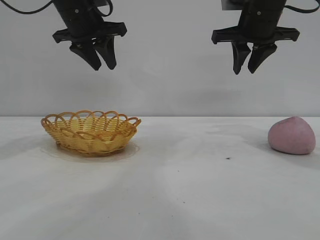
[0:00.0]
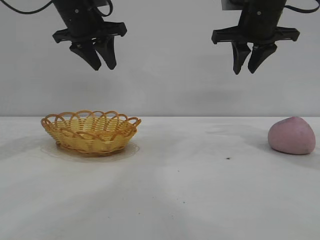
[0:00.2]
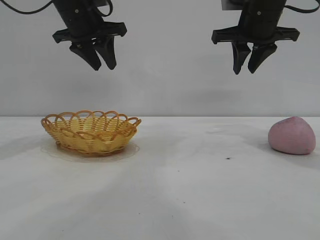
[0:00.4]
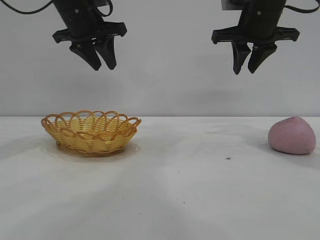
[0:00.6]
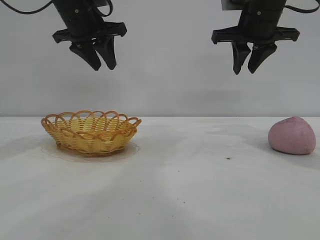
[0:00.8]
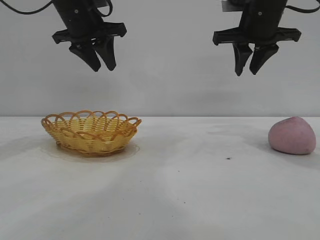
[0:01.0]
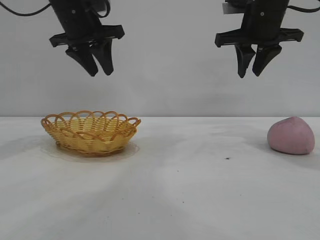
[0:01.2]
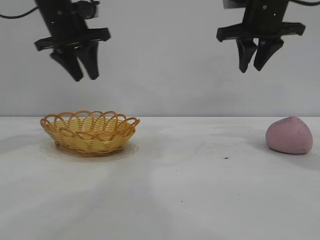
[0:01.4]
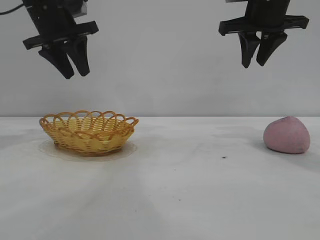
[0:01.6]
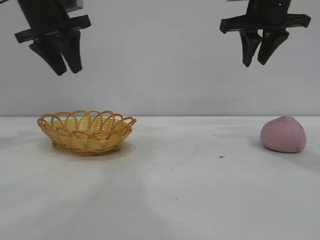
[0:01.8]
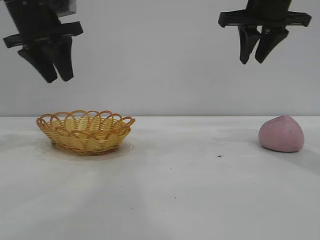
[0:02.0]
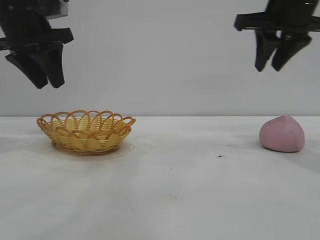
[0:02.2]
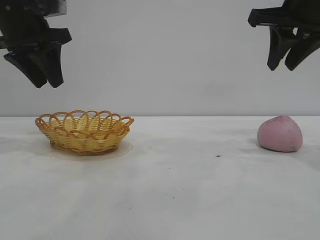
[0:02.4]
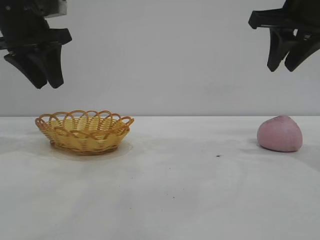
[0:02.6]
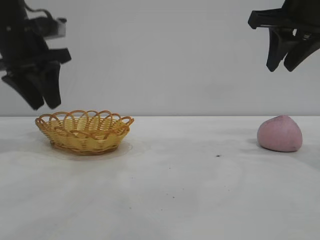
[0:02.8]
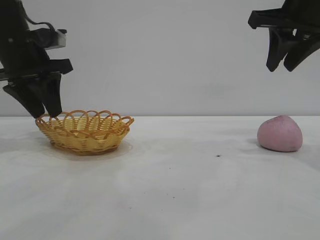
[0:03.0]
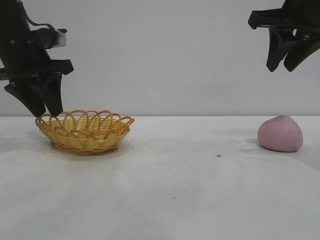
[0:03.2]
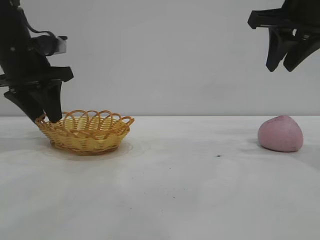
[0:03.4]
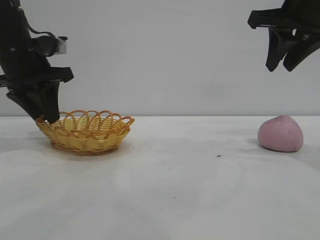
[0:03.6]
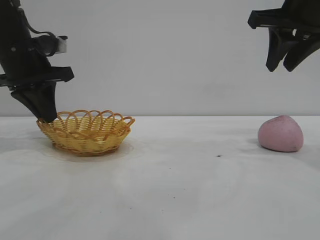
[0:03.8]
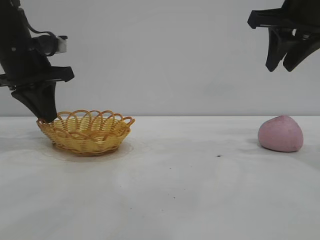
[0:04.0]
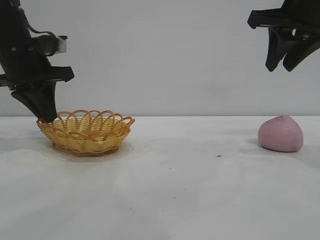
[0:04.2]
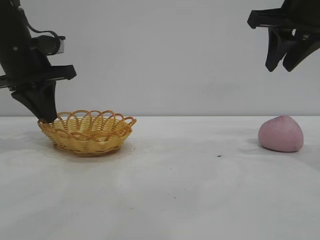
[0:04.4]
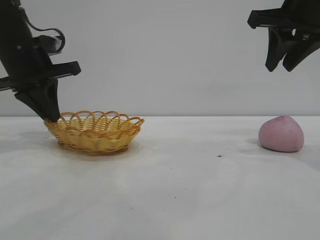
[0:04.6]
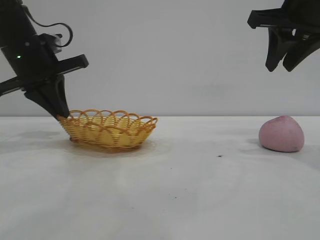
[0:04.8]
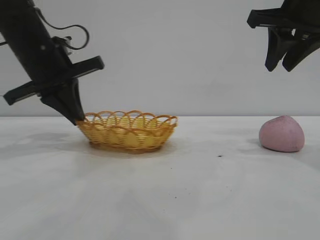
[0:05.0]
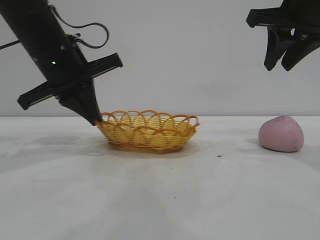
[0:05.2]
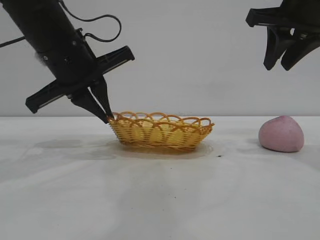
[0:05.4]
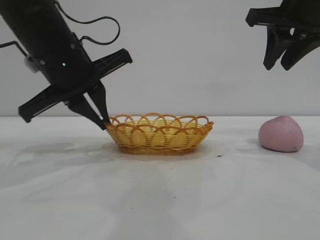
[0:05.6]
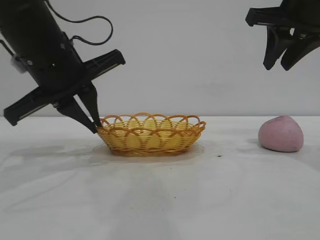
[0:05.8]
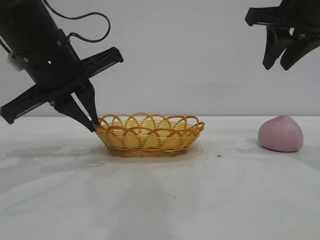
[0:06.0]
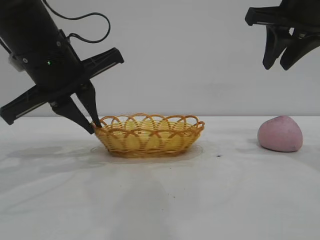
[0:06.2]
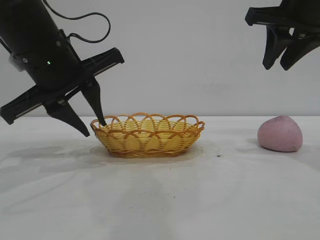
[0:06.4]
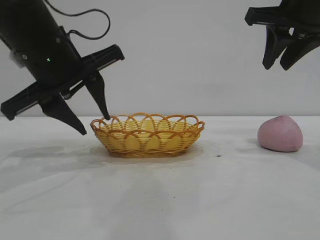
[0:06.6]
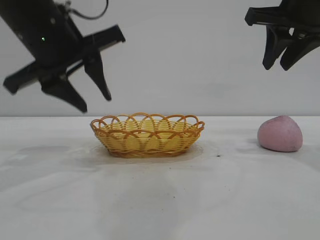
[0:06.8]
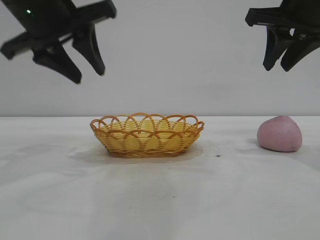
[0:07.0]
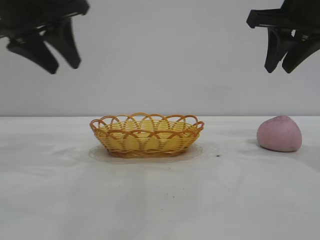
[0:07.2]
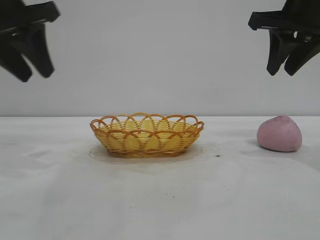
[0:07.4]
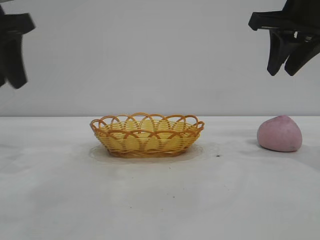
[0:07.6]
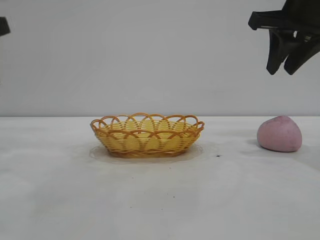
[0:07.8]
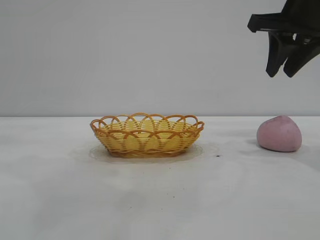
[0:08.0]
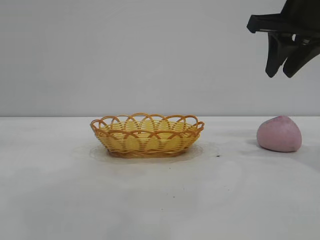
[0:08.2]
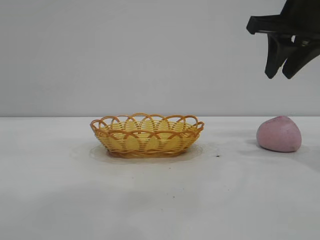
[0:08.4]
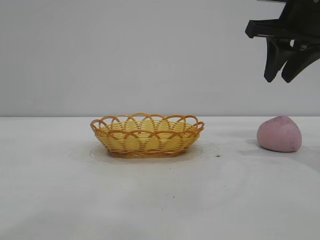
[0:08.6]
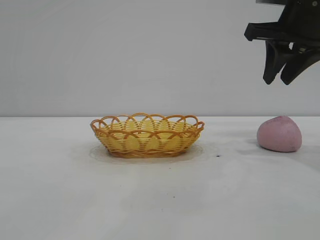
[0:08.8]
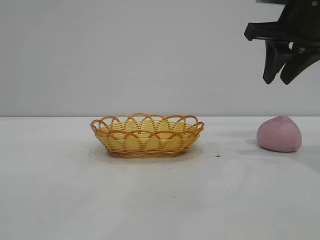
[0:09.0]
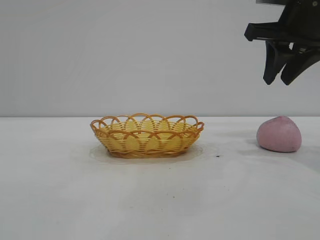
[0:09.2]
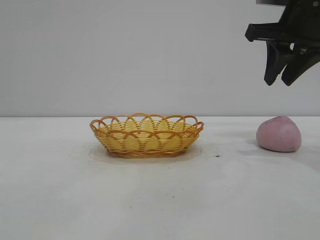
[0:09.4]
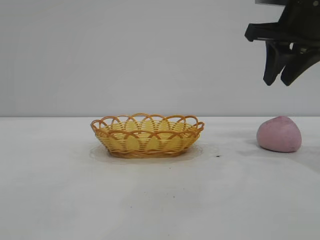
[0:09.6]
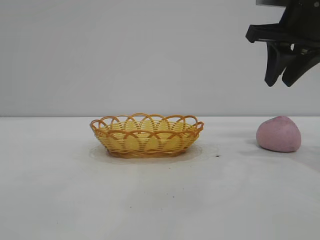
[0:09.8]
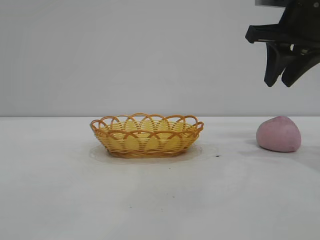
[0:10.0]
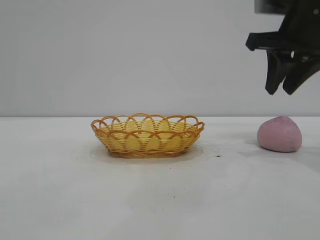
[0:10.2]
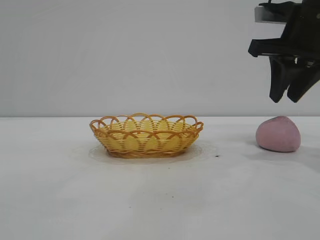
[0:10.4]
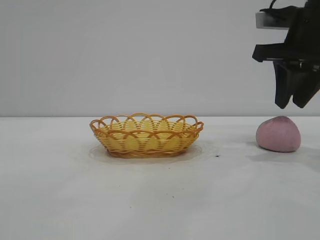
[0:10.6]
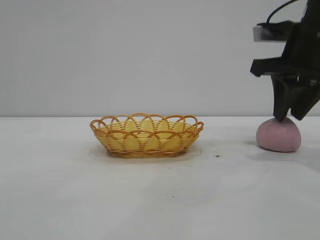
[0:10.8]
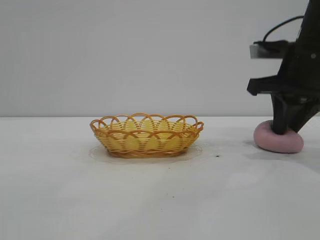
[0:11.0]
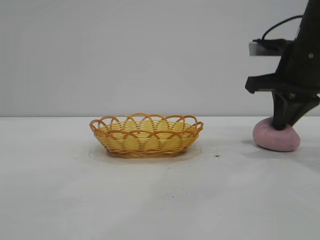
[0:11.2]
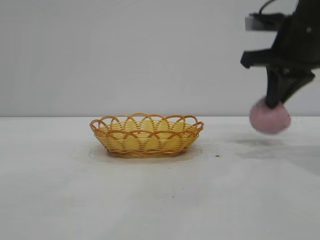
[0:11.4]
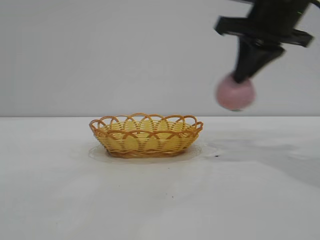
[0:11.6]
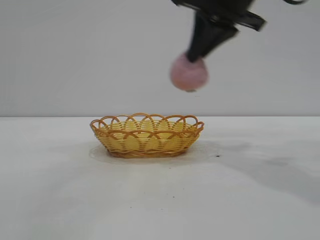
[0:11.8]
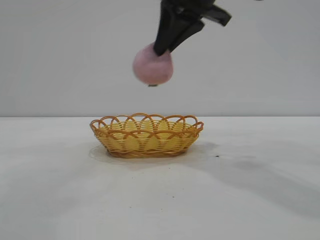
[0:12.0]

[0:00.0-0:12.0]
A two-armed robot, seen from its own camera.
Task of the whole recording: pick up the peach and put it into the basket.
Step, 0:00.0 to 0:06.8: Move the basket to the center of view.
Step, 0:07.0 to 0:11.4: Pick up the peach.

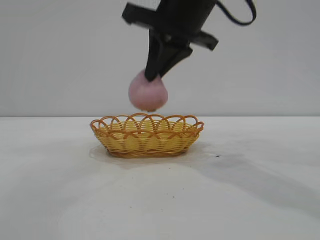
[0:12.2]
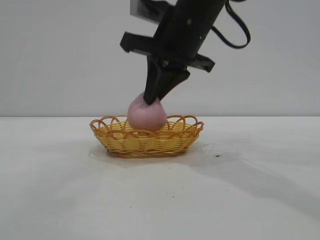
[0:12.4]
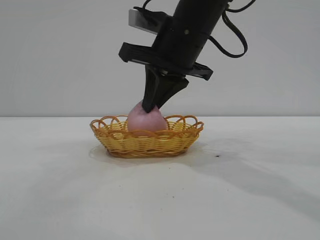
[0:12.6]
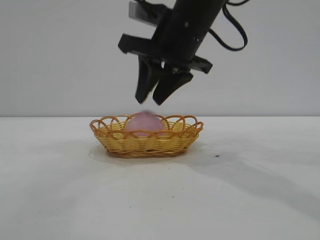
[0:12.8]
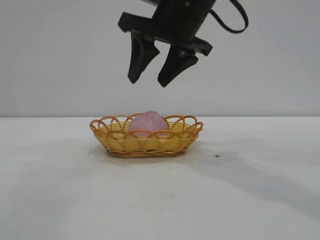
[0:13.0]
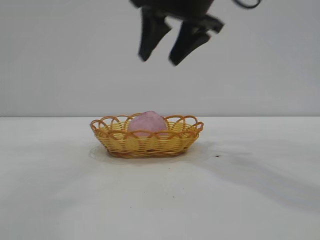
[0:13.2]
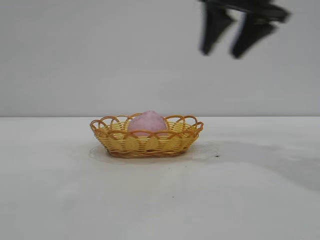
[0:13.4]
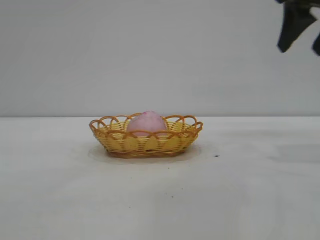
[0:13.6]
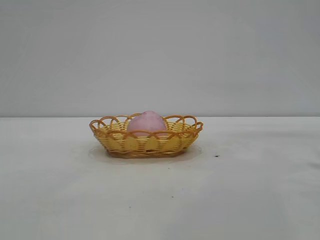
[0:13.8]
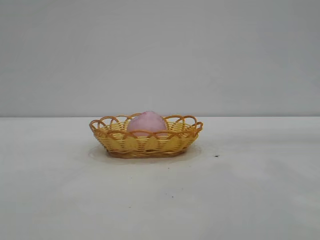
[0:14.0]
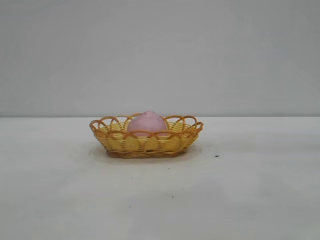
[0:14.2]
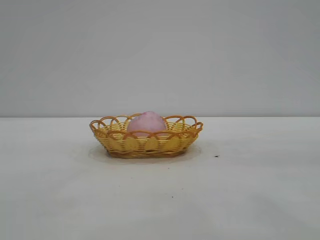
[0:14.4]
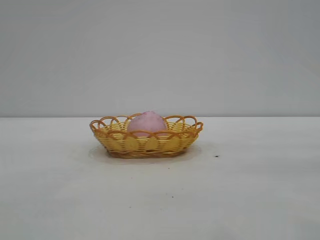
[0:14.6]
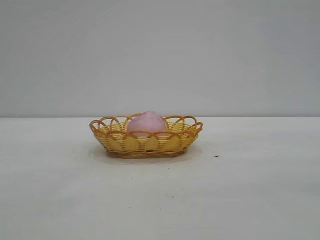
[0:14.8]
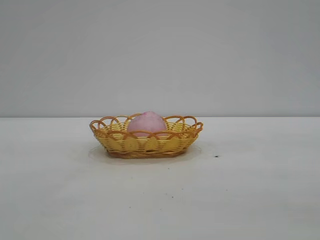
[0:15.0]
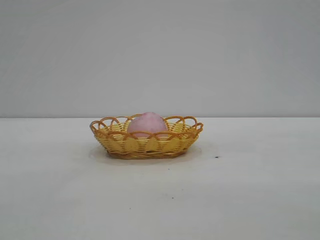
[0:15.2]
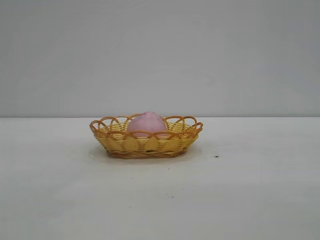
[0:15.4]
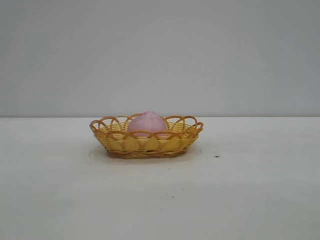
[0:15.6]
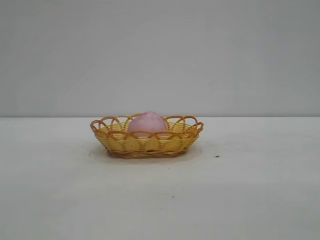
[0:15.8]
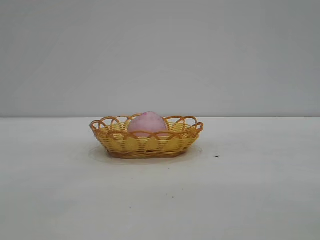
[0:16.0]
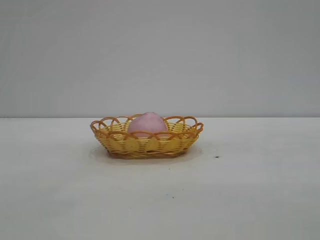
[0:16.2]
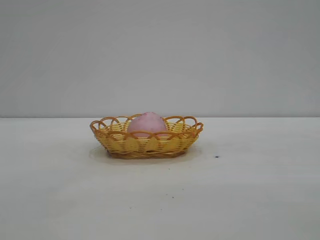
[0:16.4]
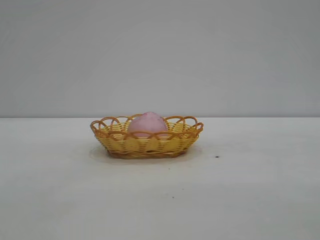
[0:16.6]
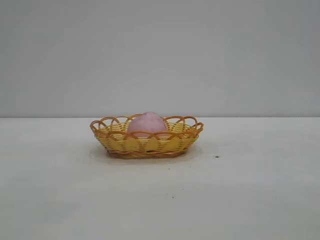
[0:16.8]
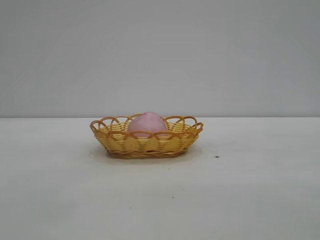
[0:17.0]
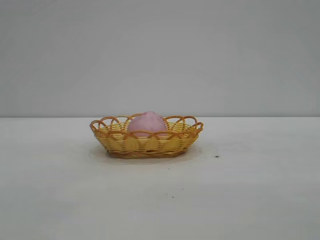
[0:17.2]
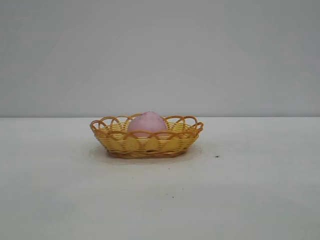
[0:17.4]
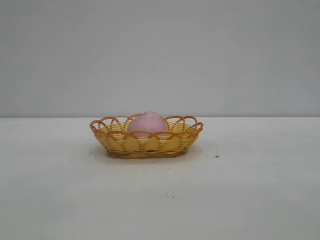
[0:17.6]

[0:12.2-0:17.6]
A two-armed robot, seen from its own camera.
Task of the whole recording: pick up the peach and put it into the basket.
Step, 0:12.2 to 0:13.0: place the peach into the basket.

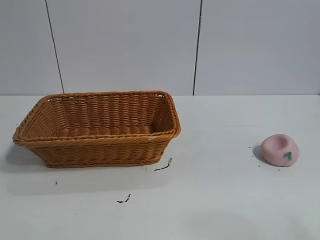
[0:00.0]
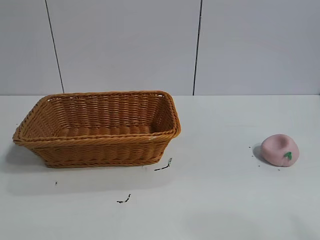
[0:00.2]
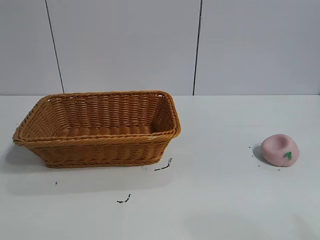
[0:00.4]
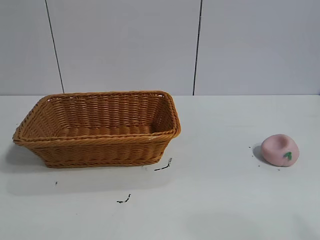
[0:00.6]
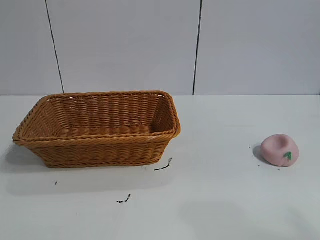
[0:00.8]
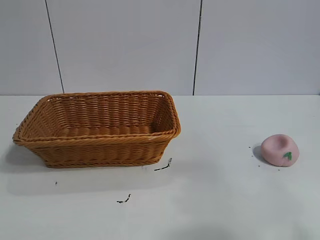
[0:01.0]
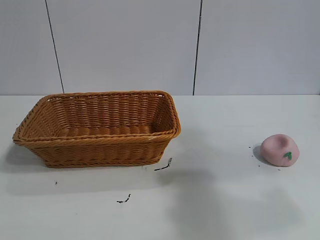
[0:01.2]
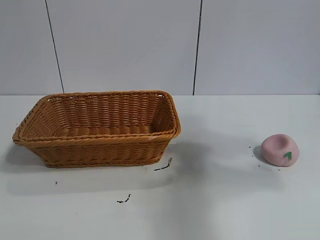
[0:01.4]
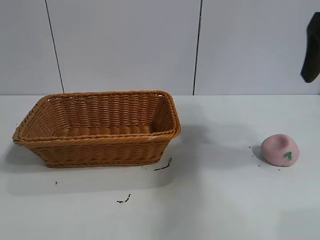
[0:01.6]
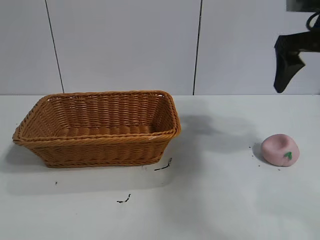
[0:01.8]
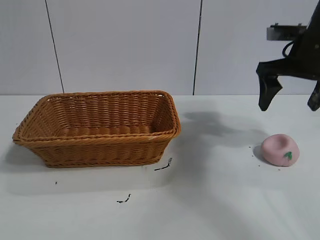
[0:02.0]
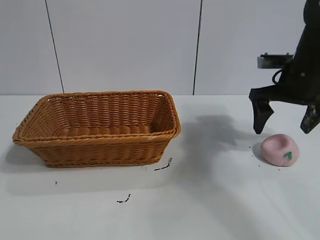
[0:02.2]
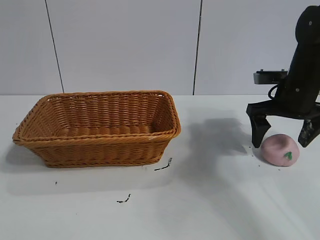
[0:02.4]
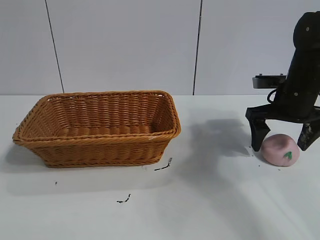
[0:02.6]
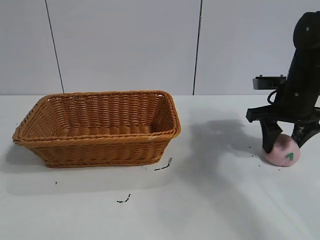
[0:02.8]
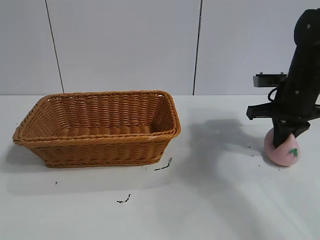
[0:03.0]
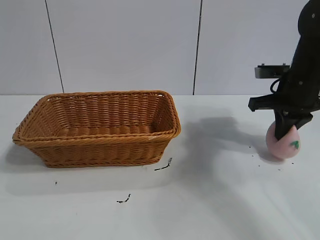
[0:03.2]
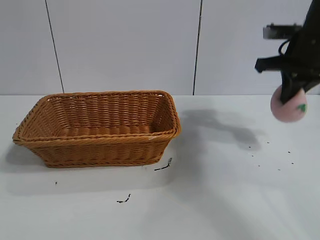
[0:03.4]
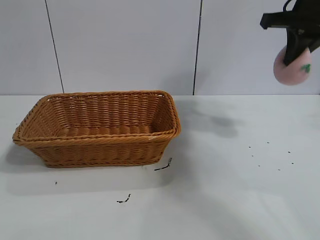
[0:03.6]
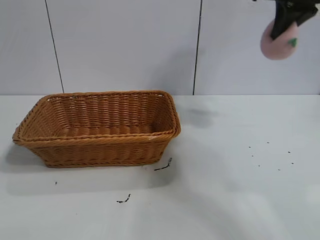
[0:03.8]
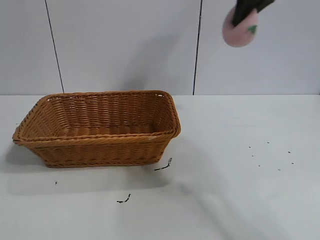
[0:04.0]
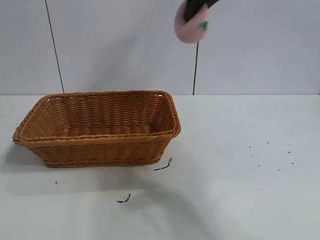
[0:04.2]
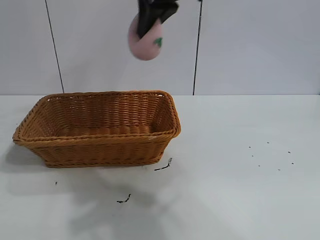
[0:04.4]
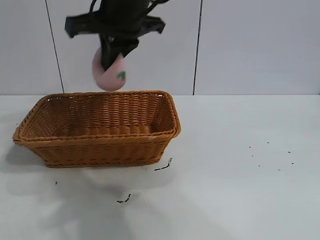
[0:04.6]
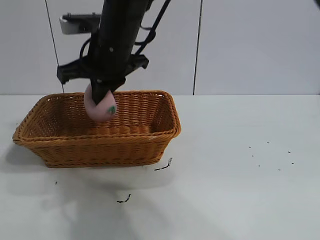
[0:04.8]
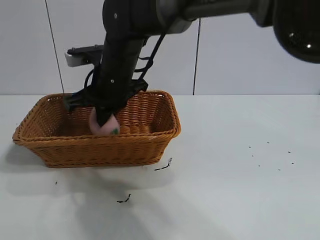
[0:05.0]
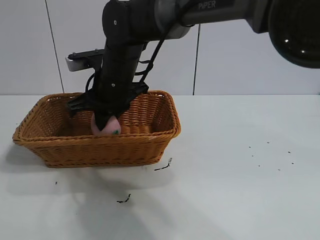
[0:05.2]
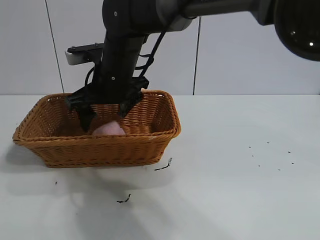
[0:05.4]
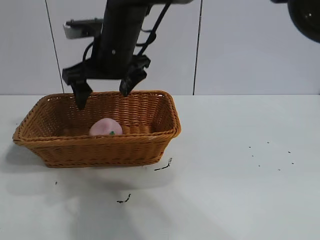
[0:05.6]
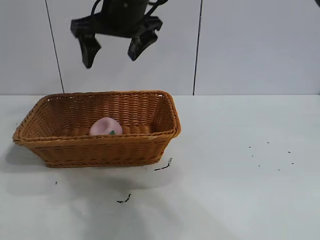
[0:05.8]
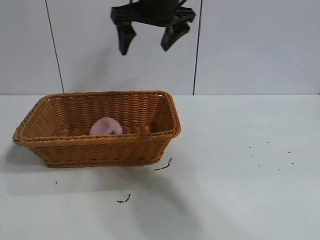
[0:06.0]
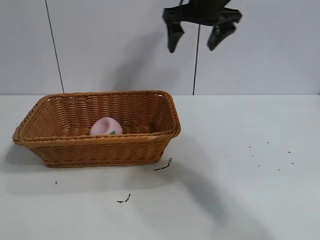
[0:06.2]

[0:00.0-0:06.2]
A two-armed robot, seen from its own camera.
Task of the whole recording: pick up the peach and put it into the basket.
Step, 0:00.8 to 0:03.0: Grasp the peach with right gripper.
Step, 0:03.2 to 0:05.6: Place the peach in the basket with right gripper.
